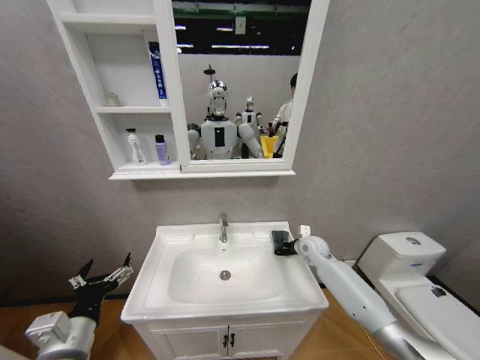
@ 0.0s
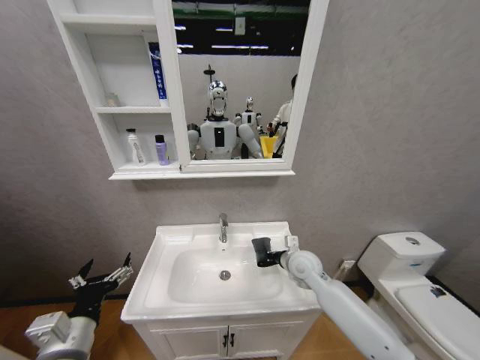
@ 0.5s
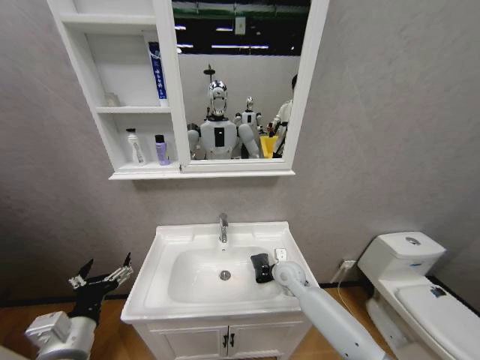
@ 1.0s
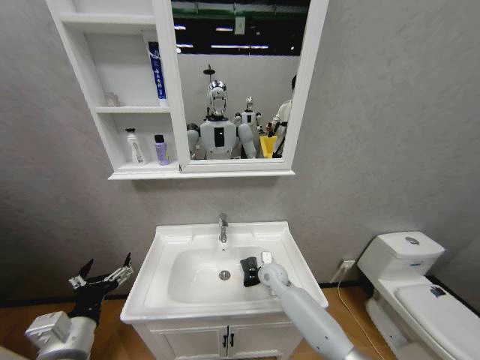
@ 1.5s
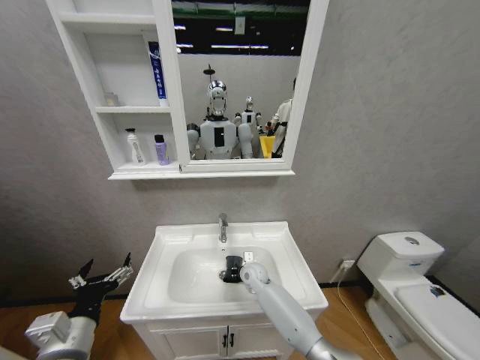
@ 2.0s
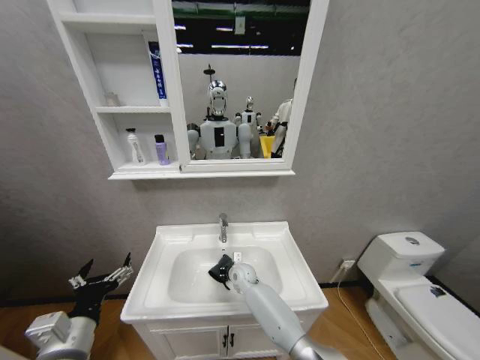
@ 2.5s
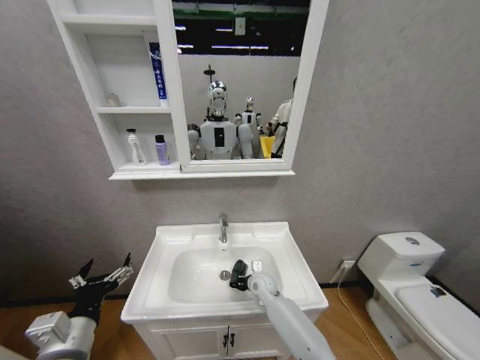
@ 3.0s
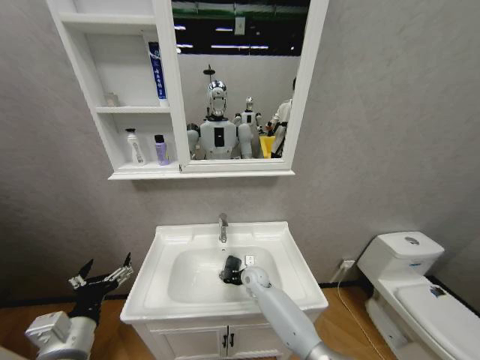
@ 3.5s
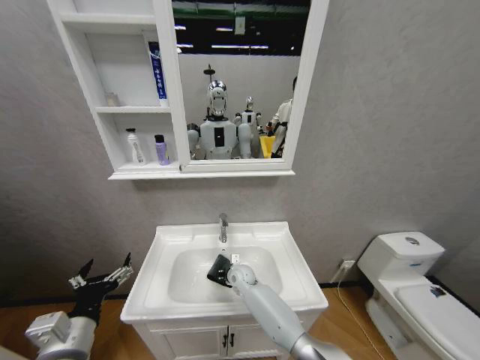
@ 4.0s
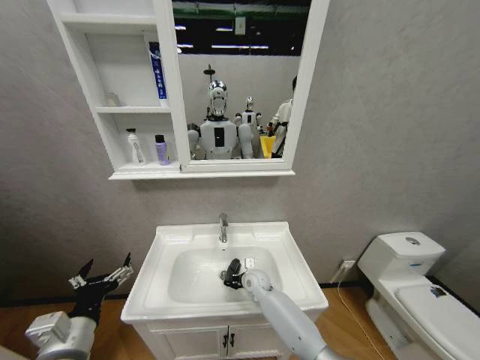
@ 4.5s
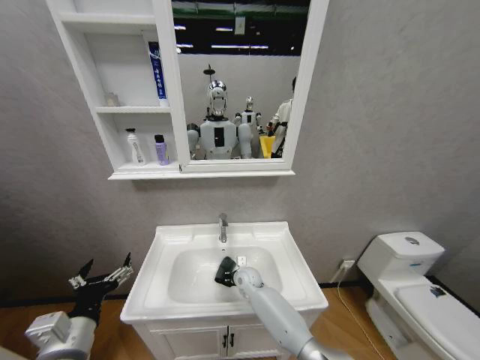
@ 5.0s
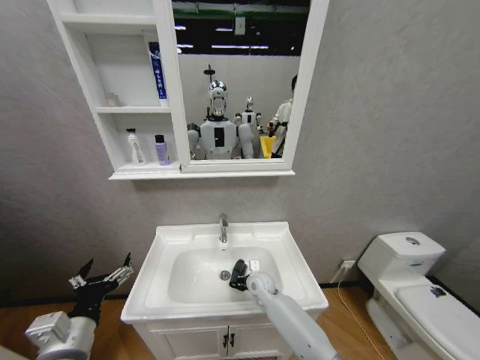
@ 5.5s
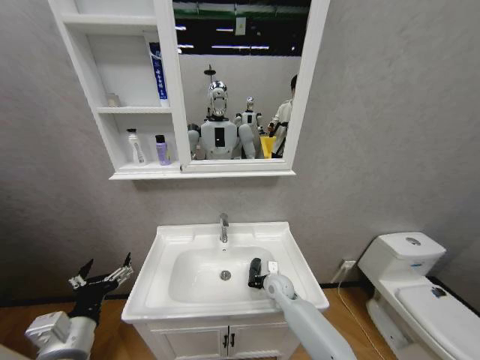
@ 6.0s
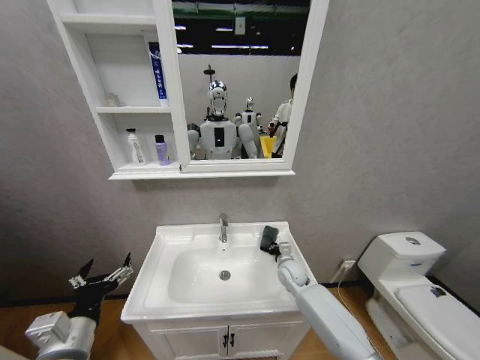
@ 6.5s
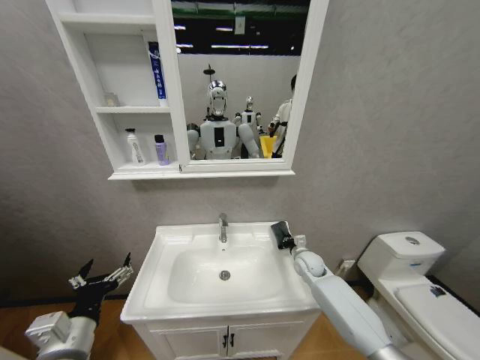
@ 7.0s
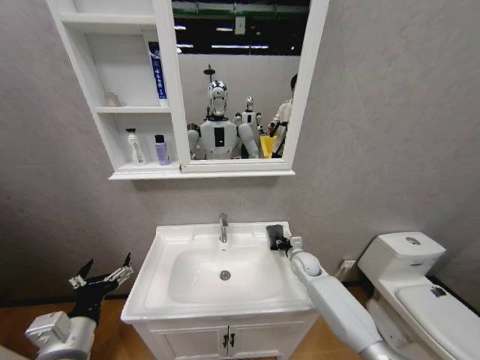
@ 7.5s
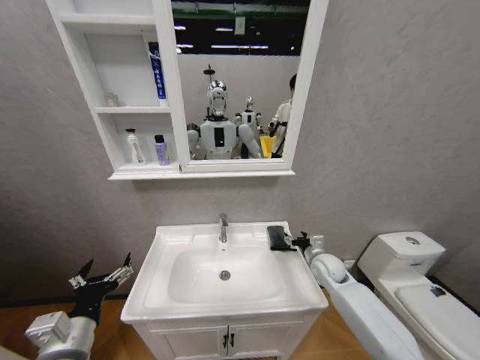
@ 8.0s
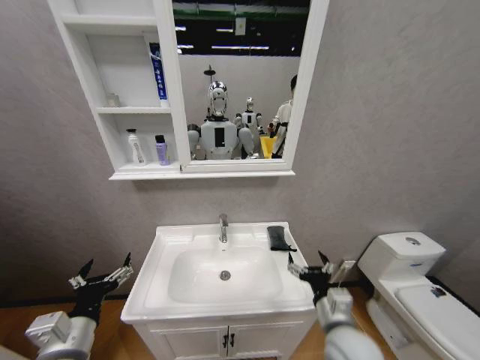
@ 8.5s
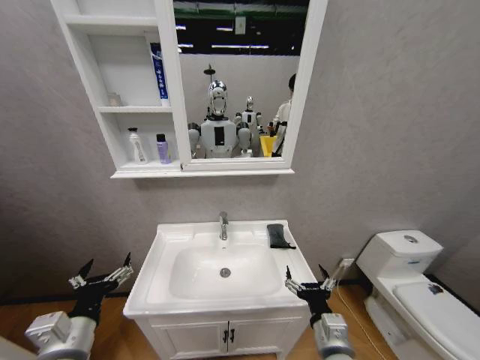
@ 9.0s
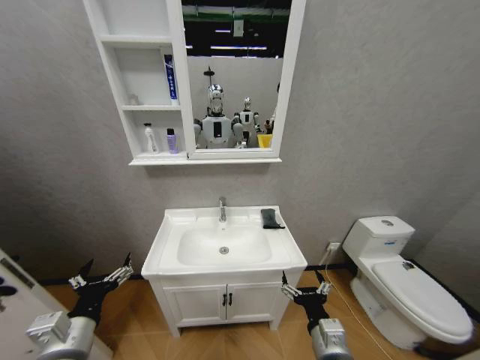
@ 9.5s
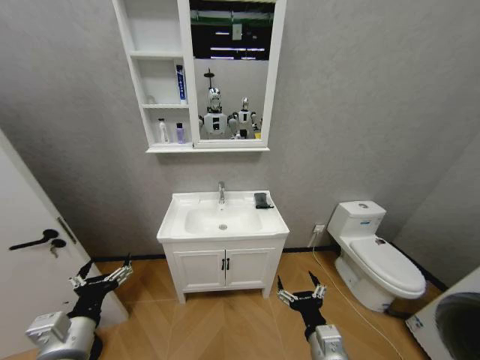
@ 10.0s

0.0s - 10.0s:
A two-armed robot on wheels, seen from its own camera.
Task of the whole recording: Move facial cleanser and shampoo from washbasin to cabinet, then wipe washbasin with towel.
0.0s - 2.0s: The right gripper travels to the left and downward by approximately 25 cm.
2.0s - 4.0s: The right gripper goes left and right, approximately 5 cm each way, reversing 2 times.
4.0s - 6.0s: The right gripper travels to the right by about 15 cm.
6.0s - 8.0s: The right gripper heads to the right and upward, covering approximately 20 cm, and opens up.
8.0s - 10.0s: The right gripper travels backward and to the left by approximately 30 cm.

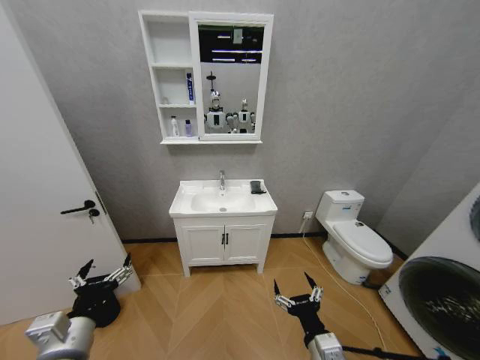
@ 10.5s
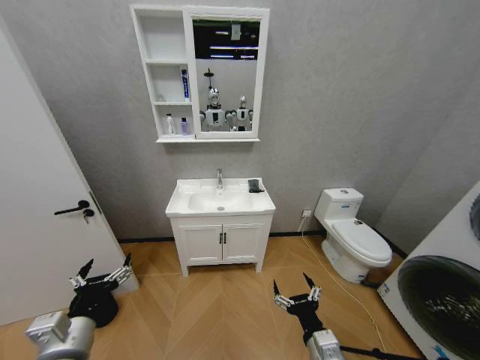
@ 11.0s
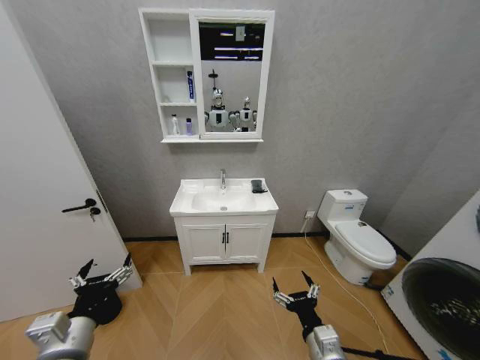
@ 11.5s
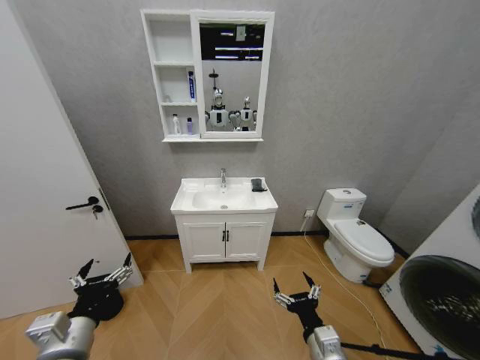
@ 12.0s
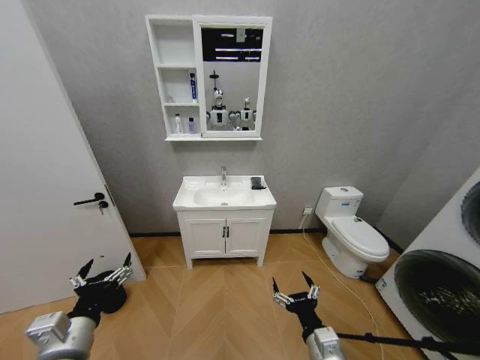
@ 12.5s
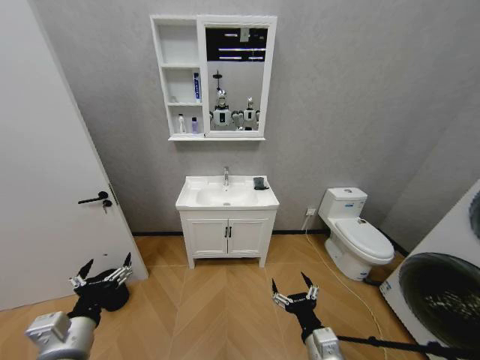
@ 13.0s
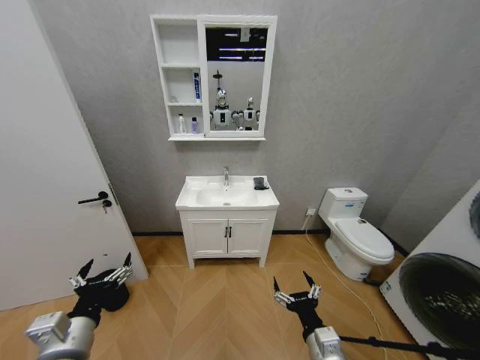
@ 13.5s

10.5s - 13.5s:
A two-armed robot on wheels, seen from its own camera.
Task of the whole recording: Move facial cleanser and shampoo from washbasin to cabinet, then wipe washbasin with towel.
10.5s - 12.0s: There are only small adjustments of the grippers.
12.0s - 13.5s: Both grippers stay put.

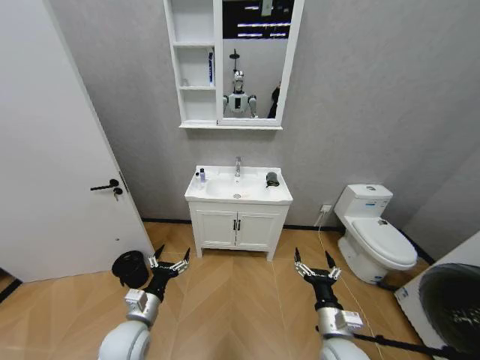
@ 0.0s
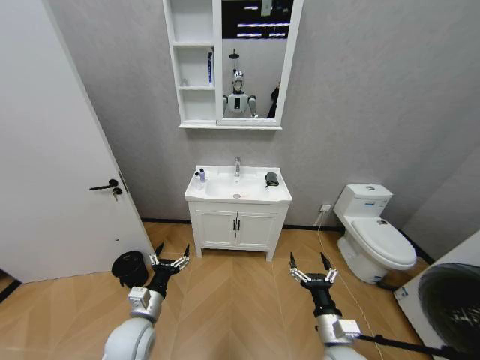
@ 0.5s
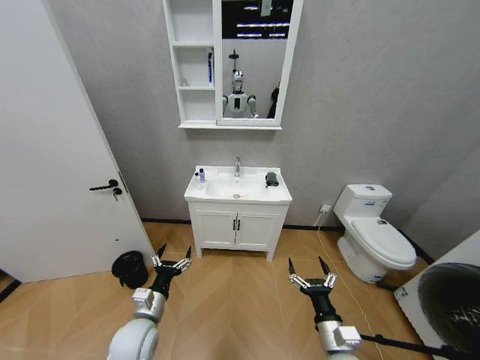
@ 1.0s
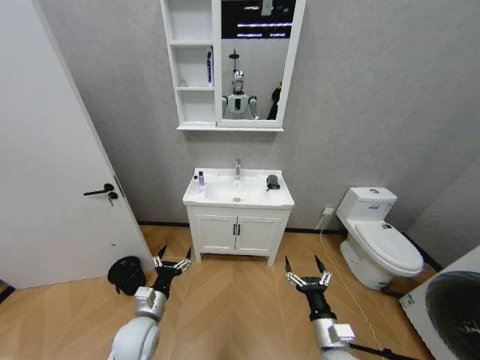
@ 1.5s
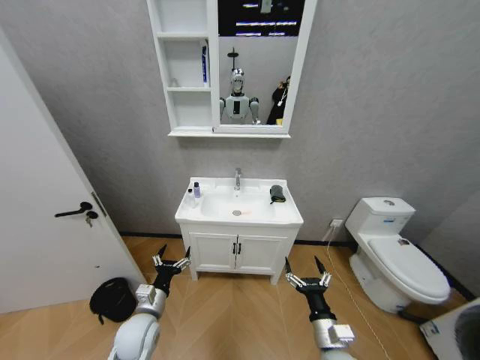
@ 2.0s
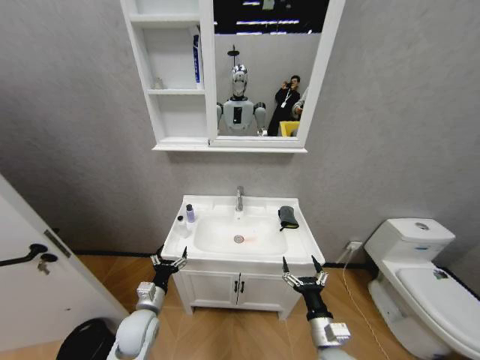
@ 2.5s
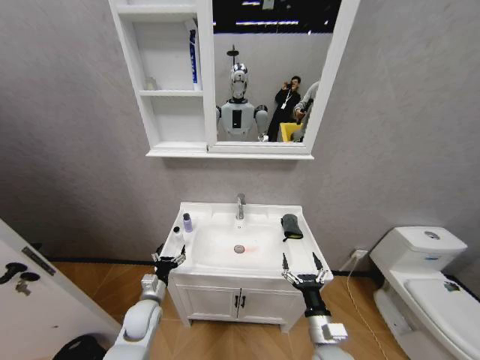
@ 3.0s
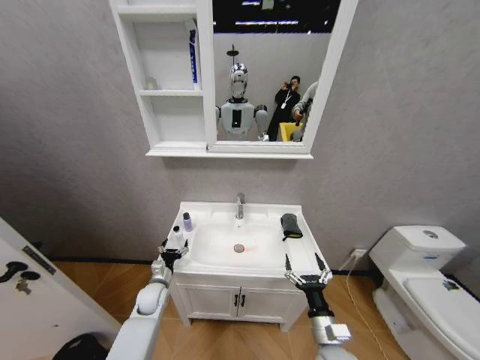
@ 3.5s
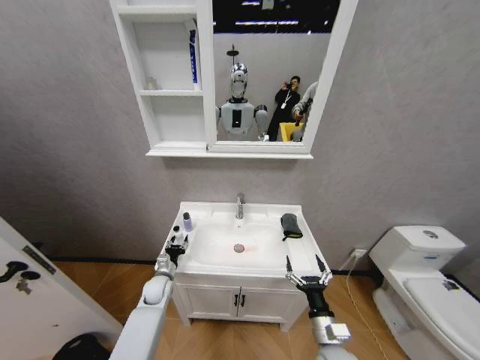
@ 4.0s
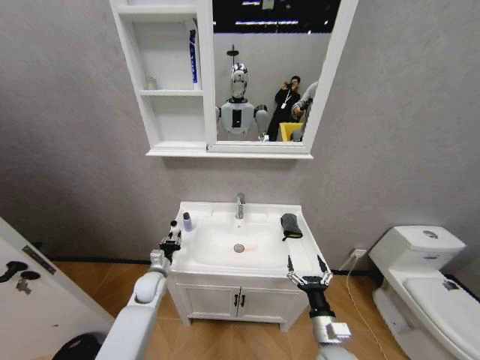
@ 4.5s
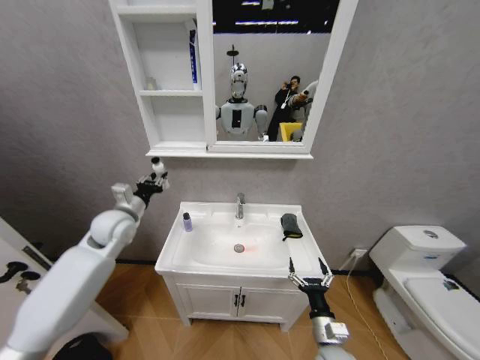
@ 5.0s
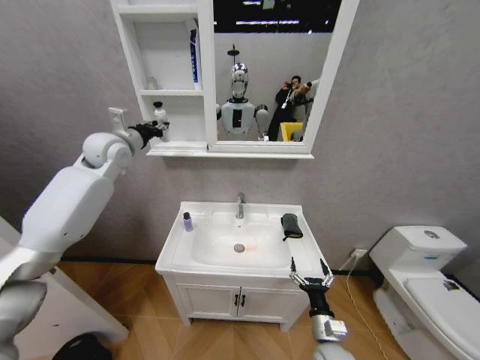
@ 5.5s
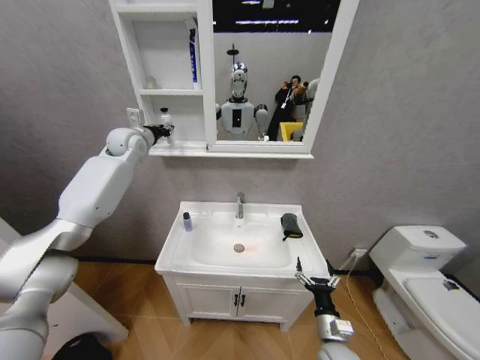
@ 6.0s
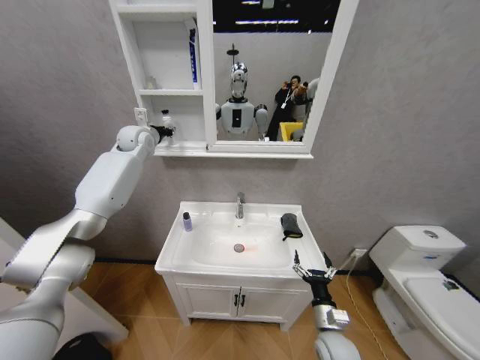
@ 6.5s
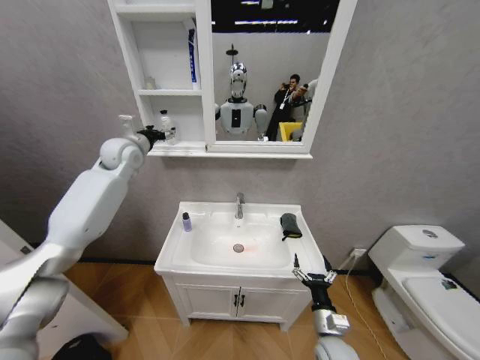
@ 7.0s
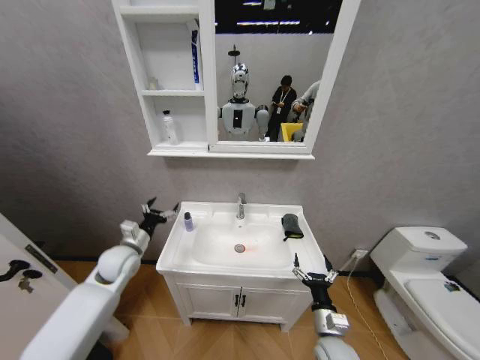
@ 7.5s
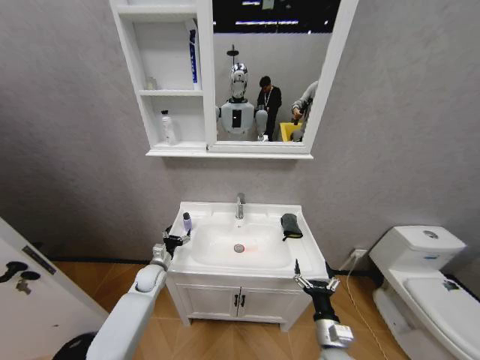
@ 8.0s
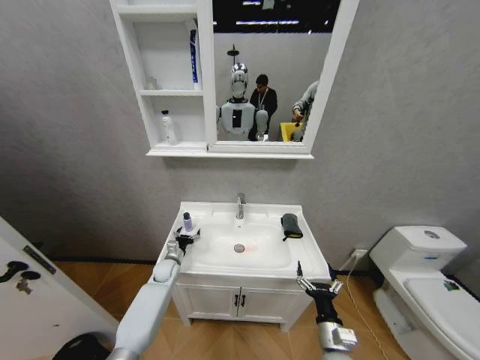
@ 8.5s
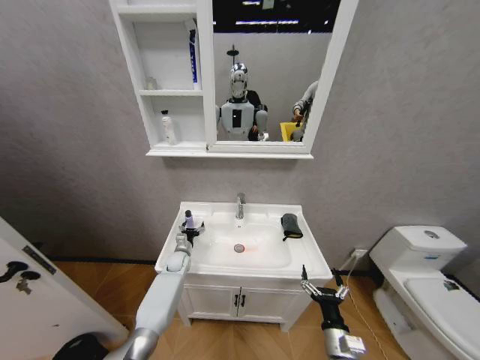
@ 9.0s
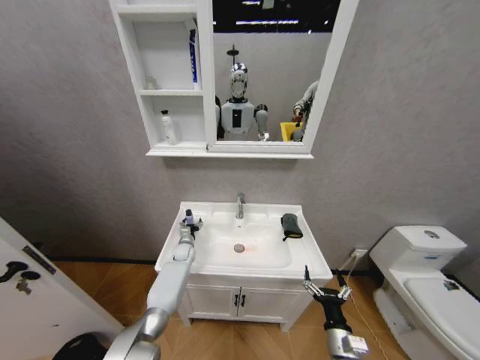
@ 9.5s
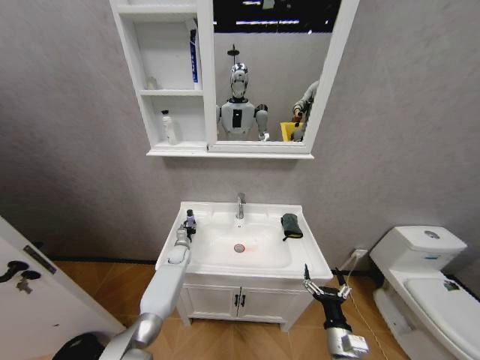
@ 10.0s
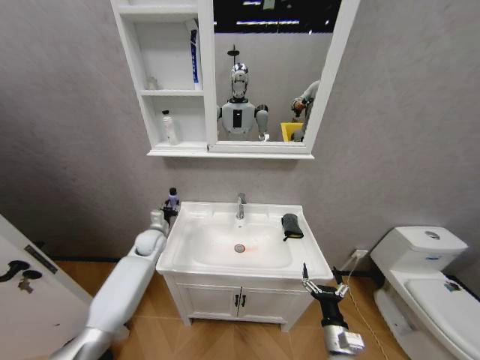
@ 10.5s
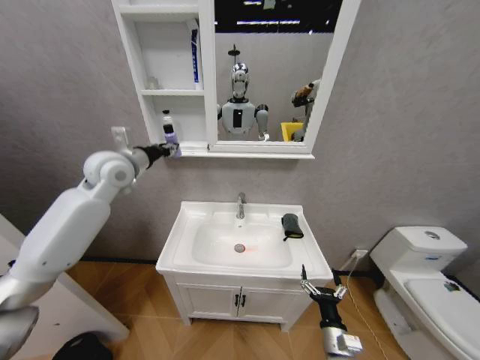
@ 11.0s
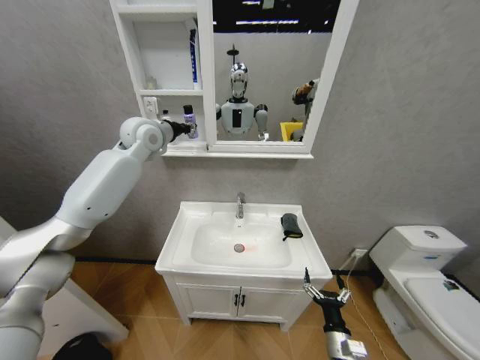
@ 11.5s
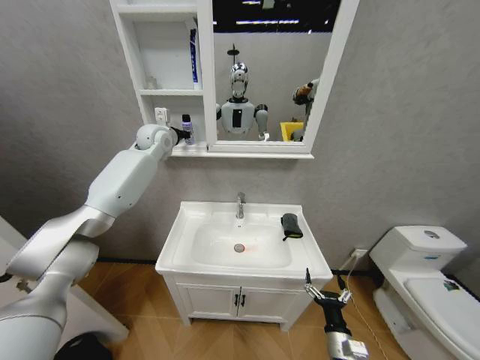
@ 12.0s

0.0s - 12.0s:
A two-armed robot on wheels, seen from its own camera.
Task of the whole recording: Move facial cleanser and shampoo from washbasin to cabinet, then wipe washbasin with towel.
2.0s - 4.0s: The left gripper is displaced forward and downward by some 15 cm, and closes.
4.0s - 6.0s: The left gripper travels upward and forward by some 50 cm, and closes up.
6.0s - 8.0s: The left gripper travels downward by roughly 40 cm, and opens up.
8.0s - 10.0s: The left gripper travels forward and to the right by roughly 15 cm, and closes.
10.0s - 12.0s: The left gripper goes about 50 cm upward.
